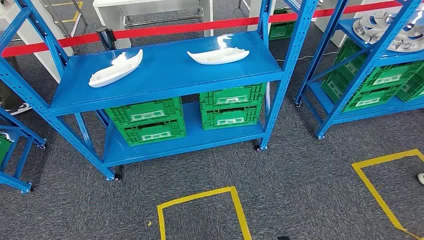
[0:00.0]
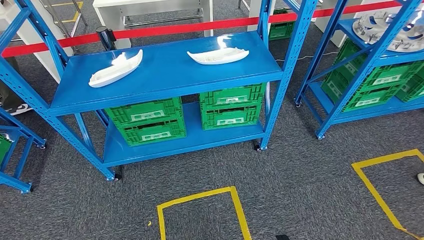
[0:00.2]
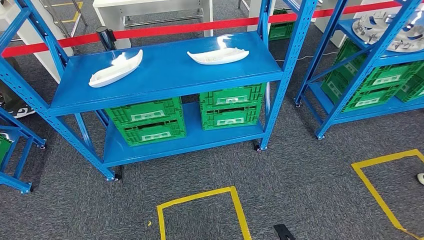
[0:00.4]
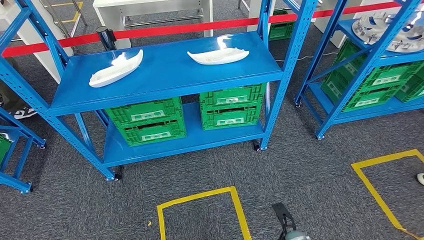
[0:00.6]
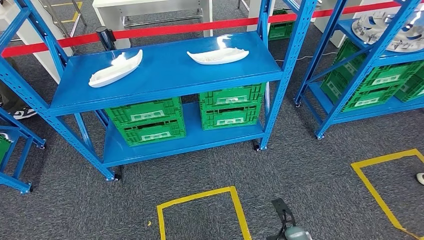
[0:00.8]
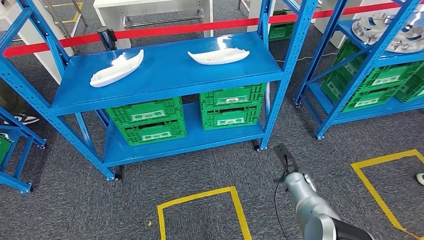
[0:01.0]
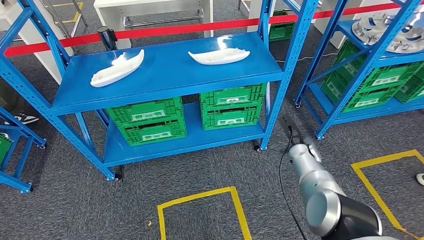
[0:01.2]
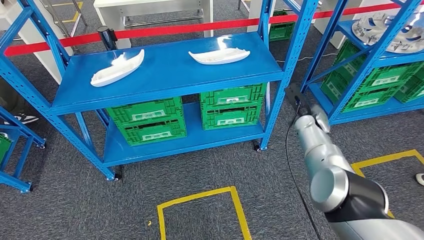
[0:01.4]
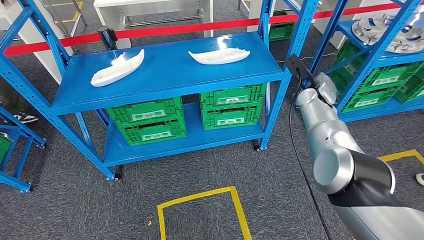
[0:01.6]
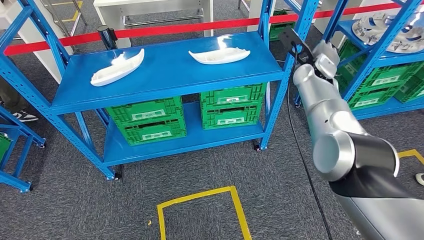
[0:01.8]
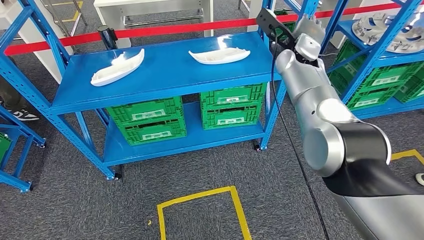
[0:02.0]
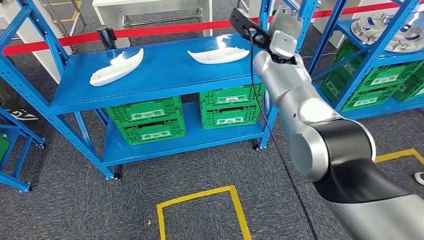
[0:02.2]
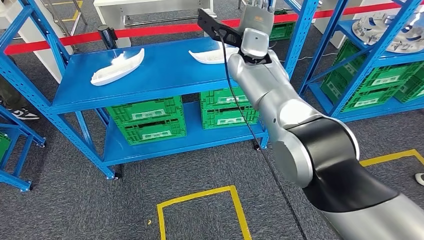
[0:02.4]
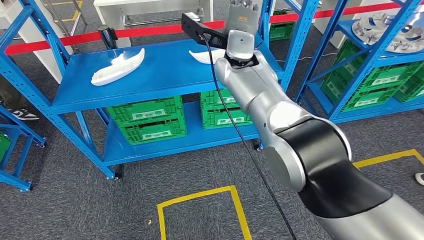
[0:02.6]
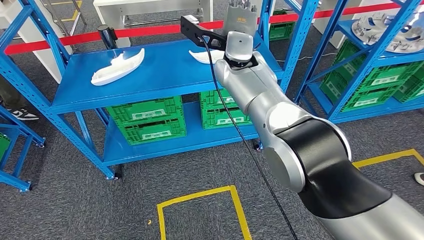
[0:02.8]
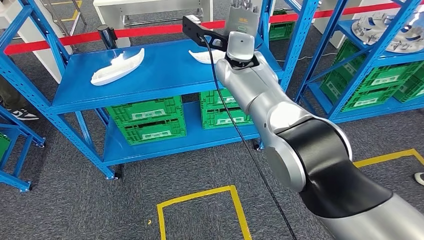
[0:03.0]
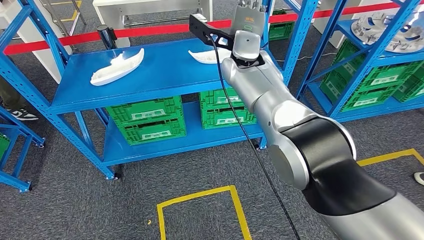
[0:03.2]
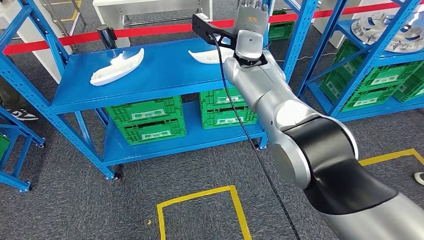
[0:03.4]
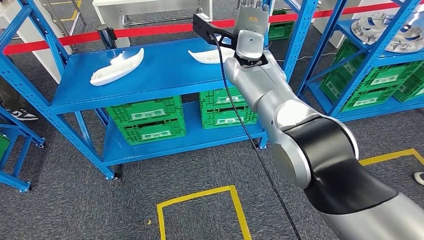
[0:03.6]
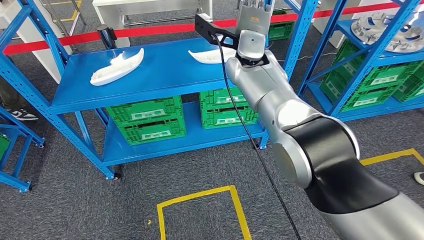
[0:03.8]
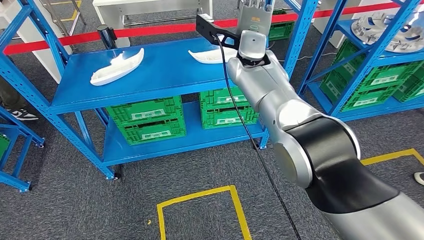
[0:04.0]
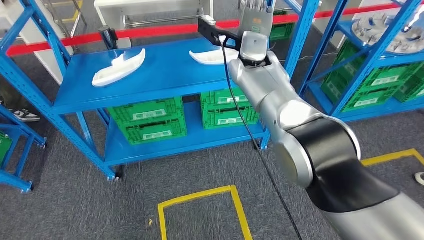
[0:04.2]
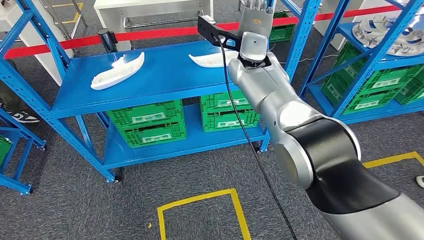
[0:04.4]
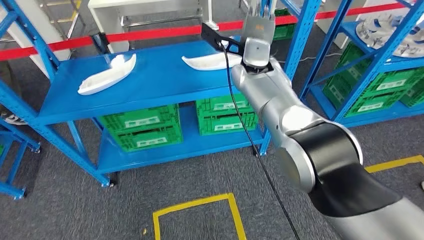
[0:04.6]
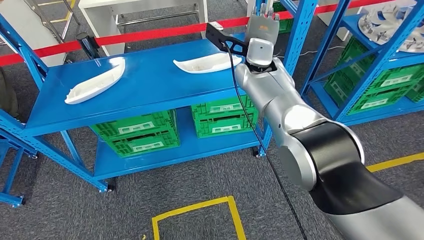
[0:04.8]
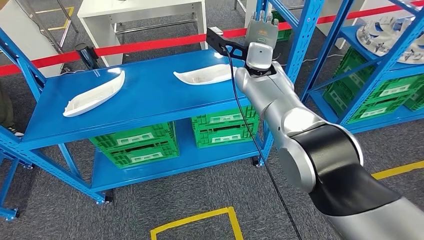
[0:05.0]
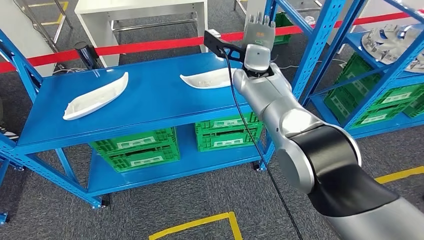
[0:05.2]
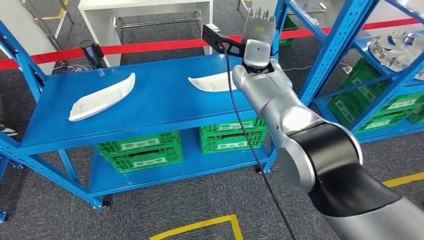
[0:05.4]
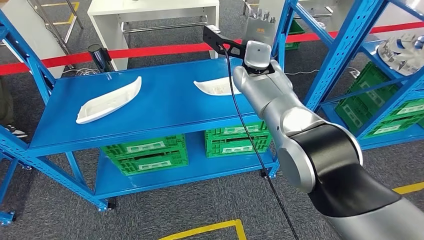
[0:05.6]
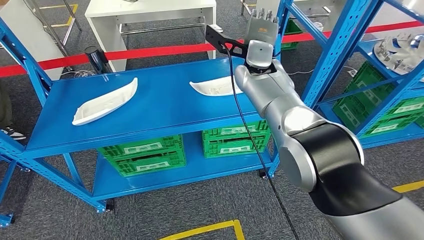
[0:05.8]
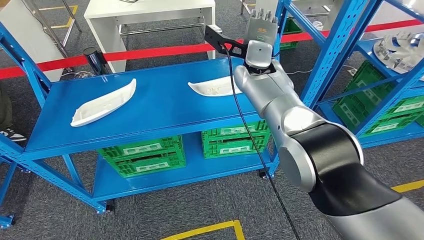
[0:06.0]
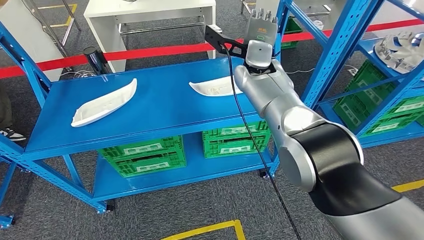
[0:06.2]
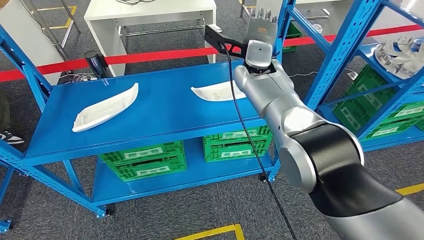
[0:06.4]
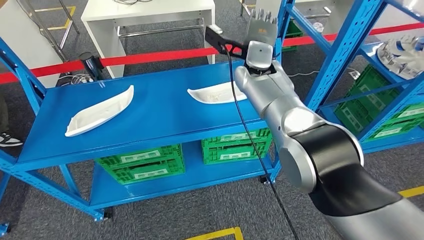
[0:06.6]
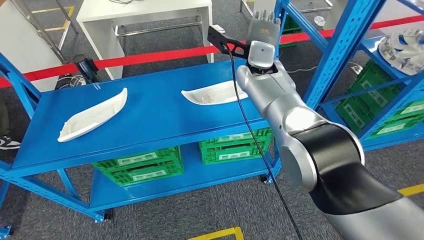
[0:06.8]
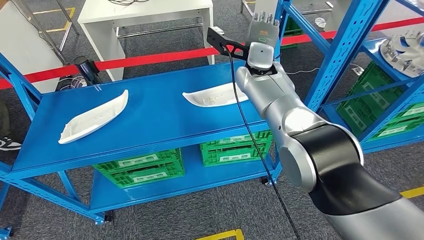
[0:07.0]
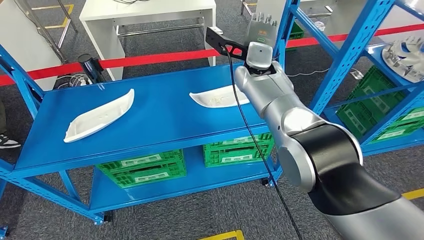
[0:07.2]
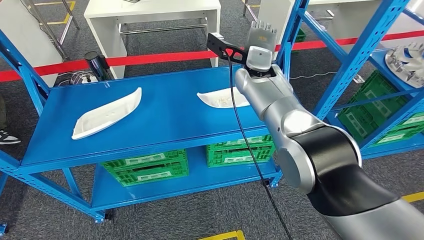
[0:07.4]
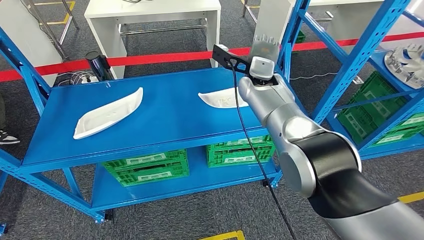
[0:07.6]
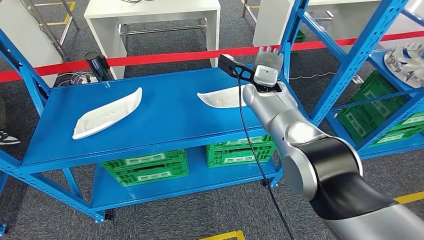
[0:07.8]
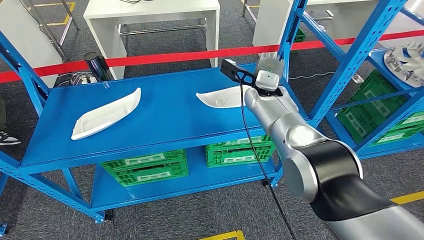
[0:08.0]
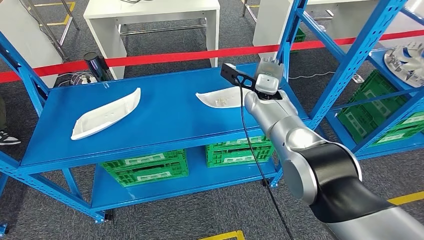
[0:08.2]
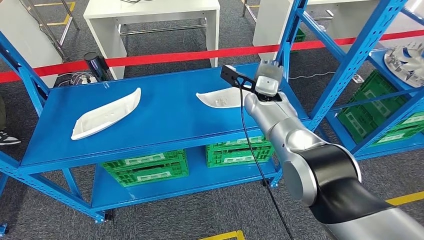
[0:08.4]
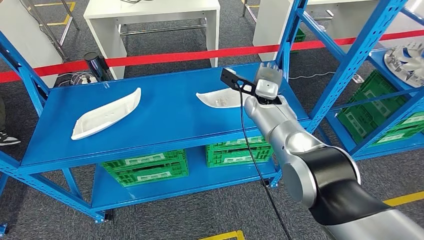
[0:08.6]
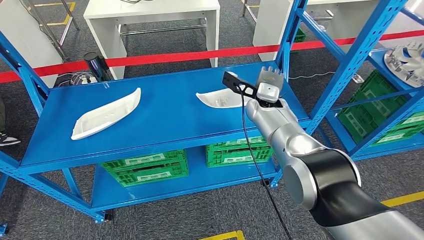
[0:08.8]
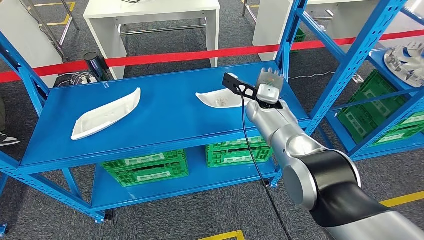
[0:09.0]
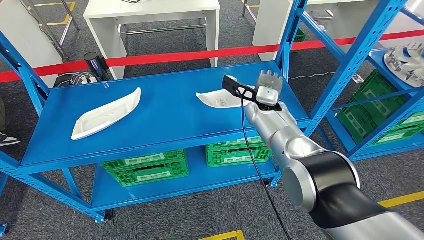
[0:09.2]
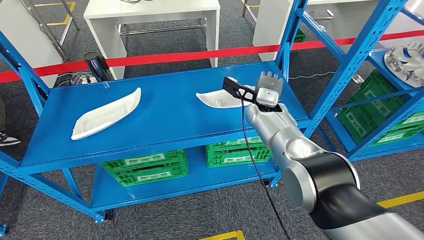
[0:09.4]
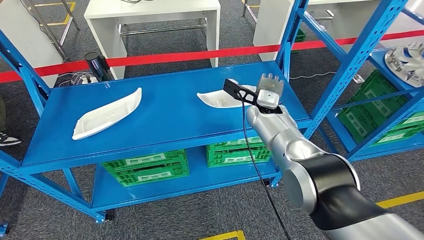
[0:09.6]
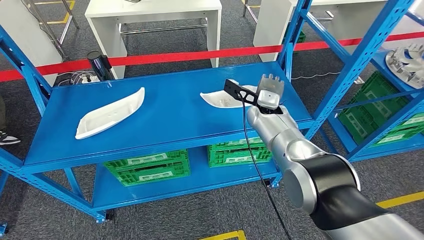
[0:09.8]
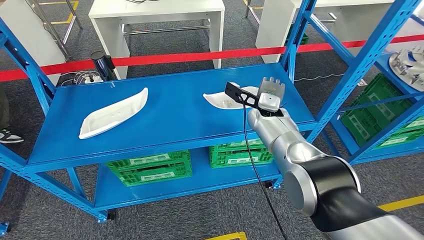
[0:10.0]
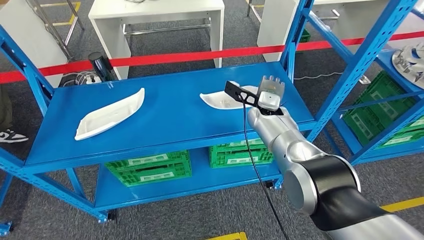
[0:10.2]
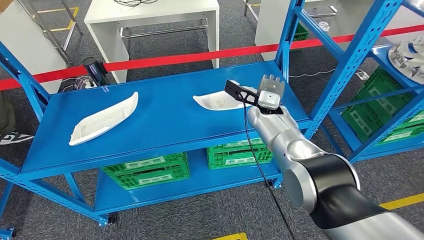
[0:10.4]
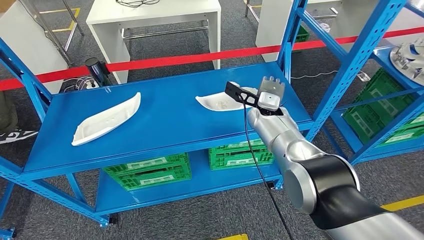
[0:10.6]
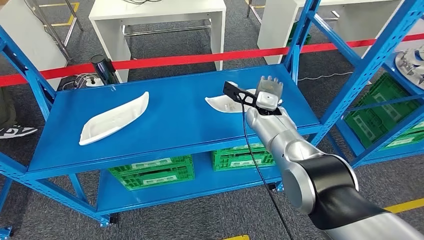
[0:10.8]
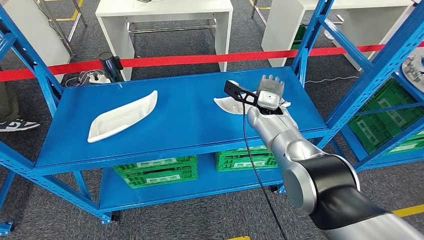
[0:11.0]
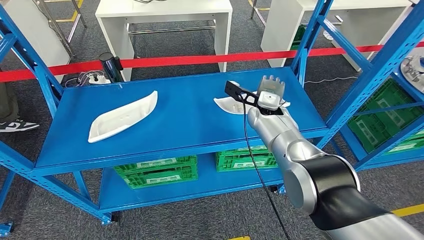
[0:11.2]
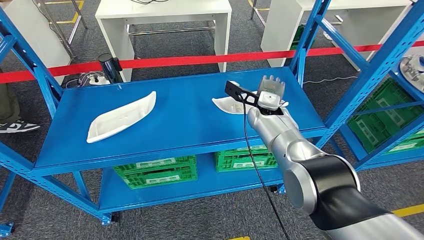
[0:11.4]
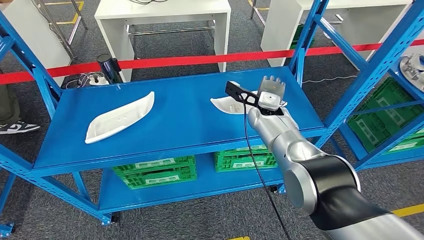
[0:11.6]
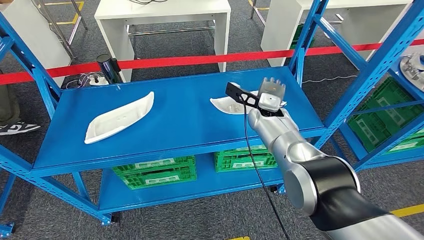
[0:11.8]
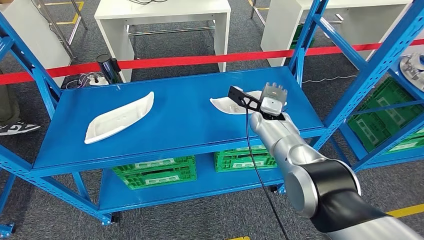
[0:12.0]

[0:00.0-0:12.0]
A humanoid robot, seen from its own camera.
0:01.6 to 0:03.0: The right hand is displaced to the left and upward by about 25 cm.
0:07.6 to 0:09.0: The right hand goes approximately 5 cm downward.

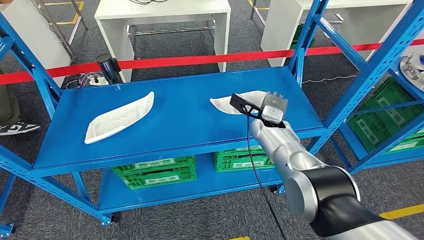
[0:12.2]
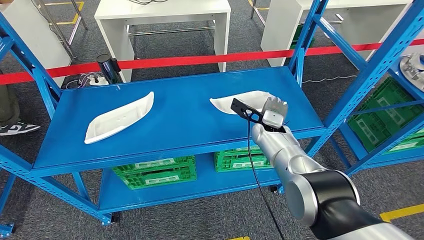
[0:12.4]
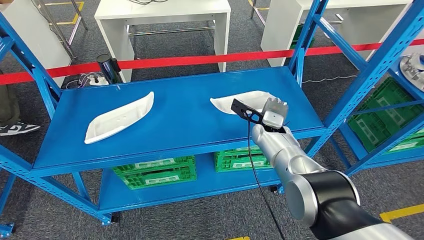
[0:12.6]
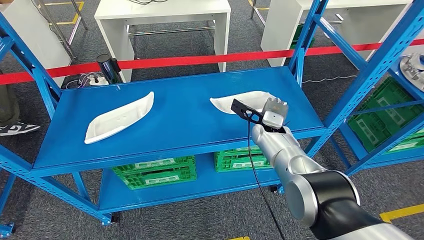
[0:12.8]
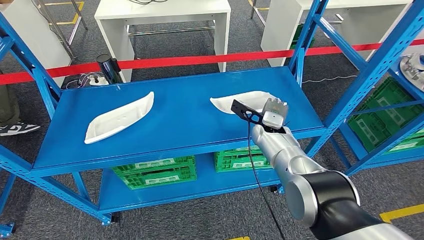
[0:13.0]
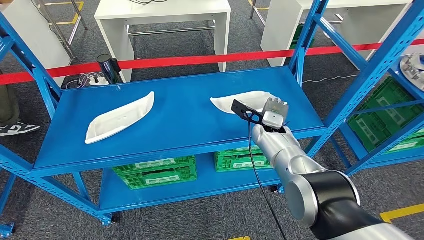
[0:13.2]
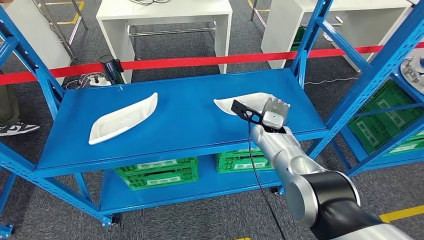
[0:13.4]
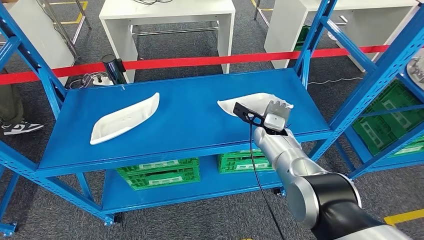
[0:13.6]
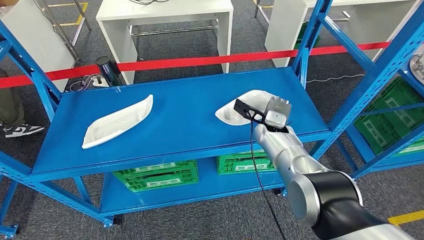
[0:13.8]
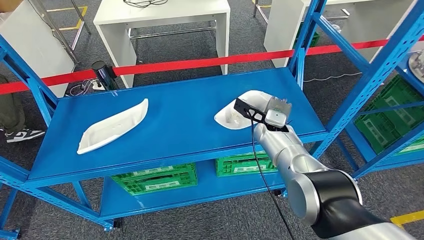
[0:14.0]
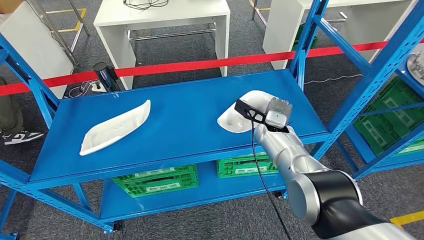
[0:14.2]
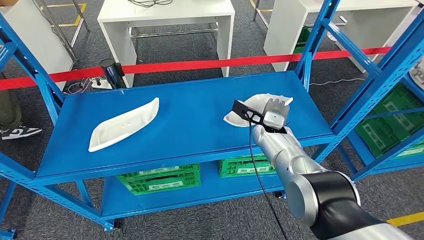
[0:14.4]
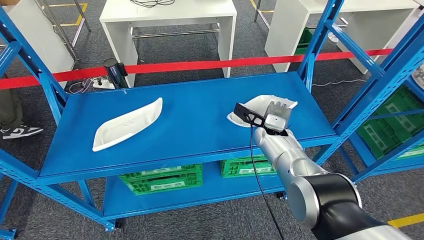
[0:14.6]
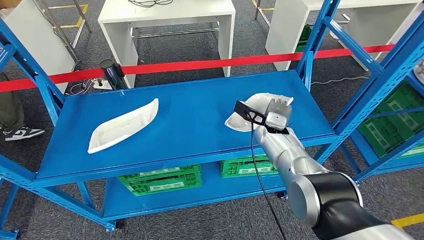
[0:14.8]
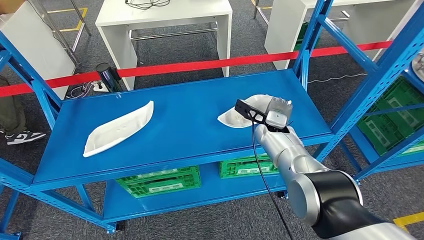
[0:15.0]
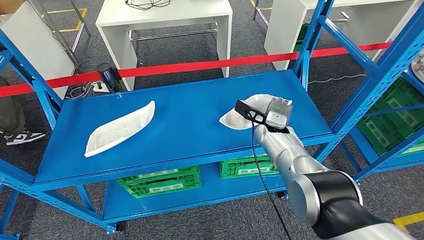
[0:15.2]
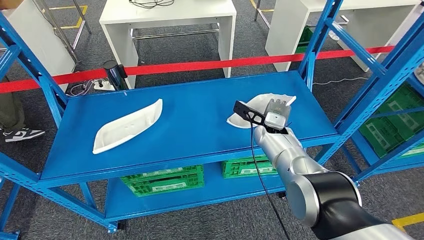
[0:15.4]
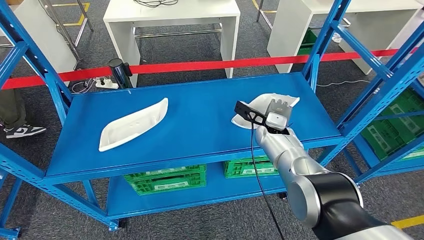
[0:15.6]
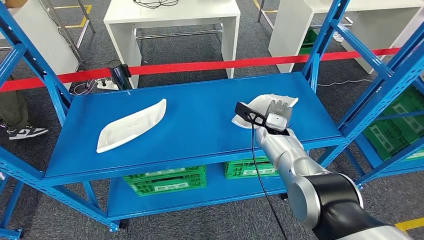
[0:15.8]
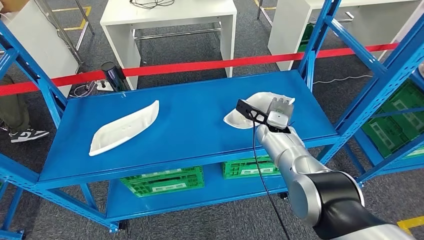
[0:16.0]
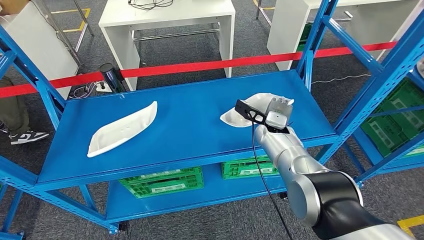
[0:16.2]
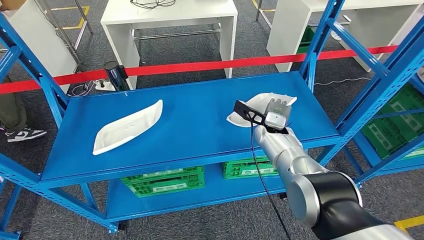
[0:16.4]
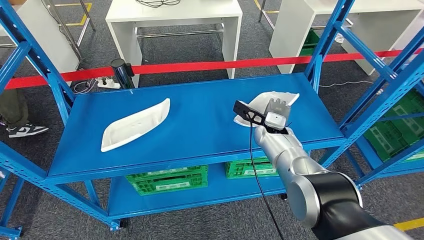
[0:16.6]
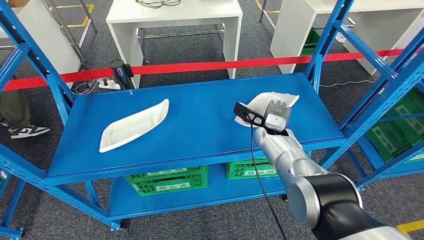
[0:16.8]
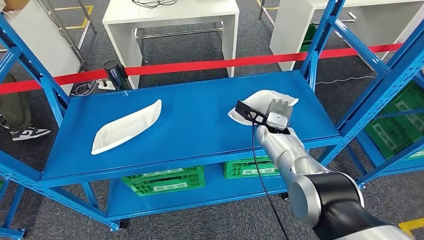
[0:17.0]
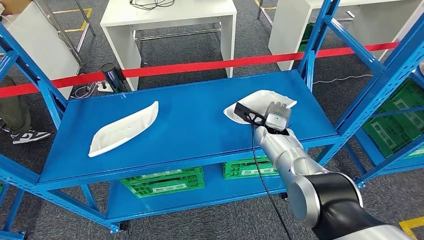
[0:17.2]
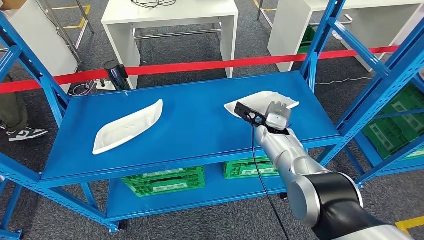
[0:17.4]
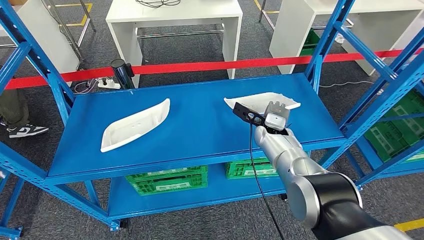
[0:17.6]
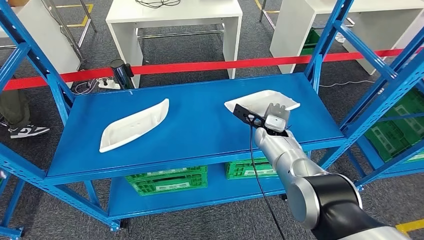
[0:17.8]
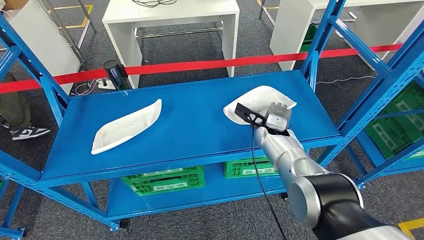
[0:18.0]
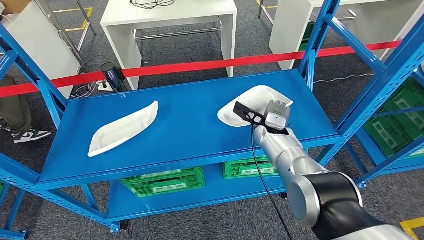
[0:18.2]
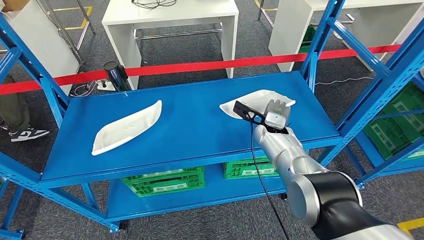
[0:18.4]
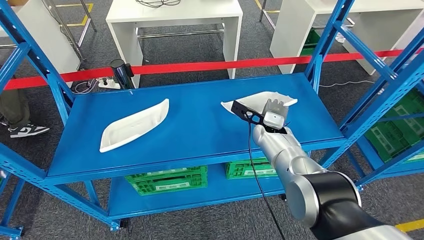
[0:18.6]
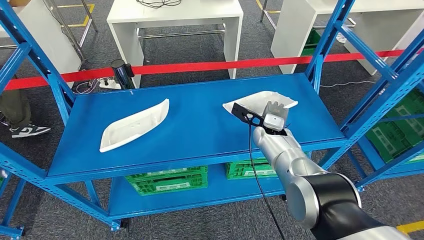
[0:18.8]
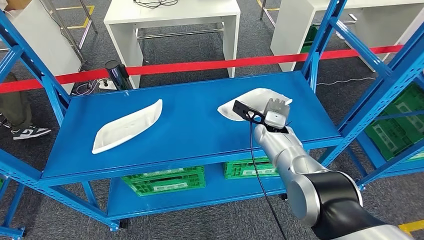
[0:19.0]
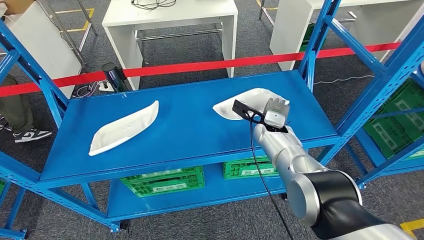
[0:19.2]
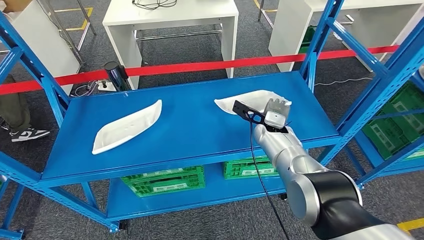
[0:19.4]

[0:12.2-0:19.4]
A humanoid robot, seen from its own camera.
0:16.6 to 0:19.4: Both hands stay about where they are.
